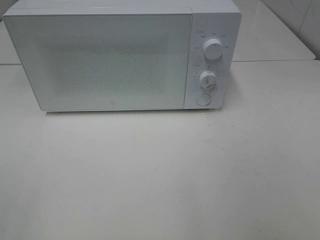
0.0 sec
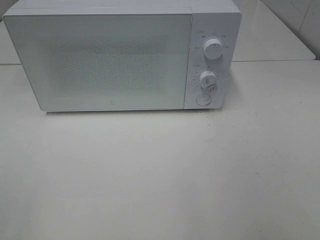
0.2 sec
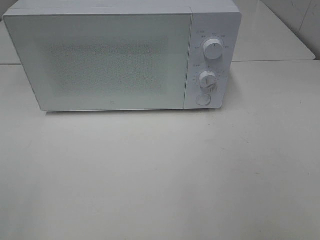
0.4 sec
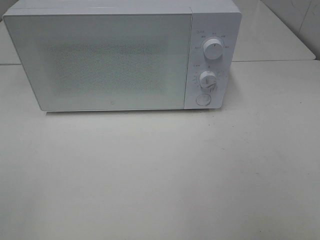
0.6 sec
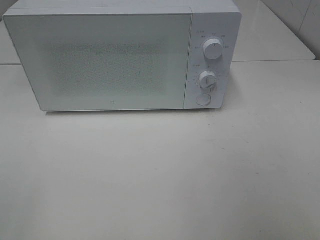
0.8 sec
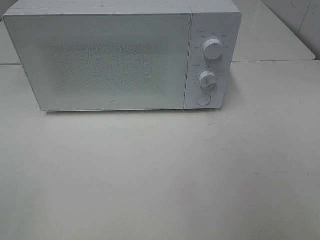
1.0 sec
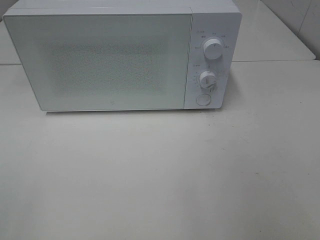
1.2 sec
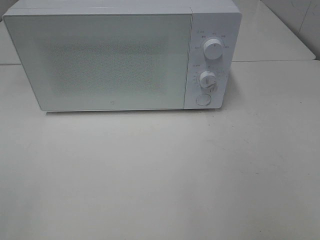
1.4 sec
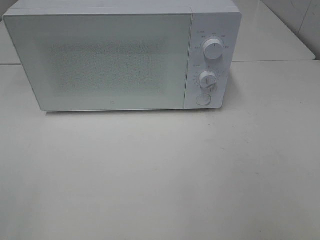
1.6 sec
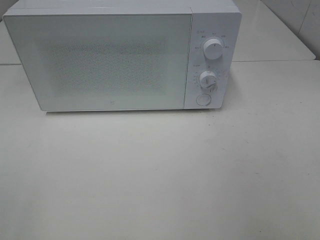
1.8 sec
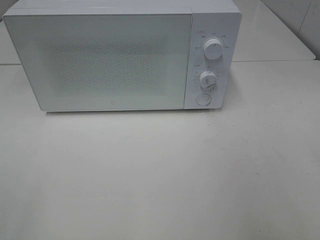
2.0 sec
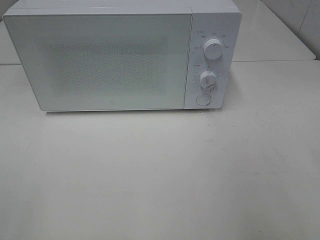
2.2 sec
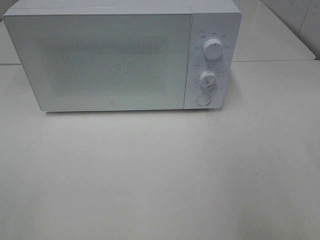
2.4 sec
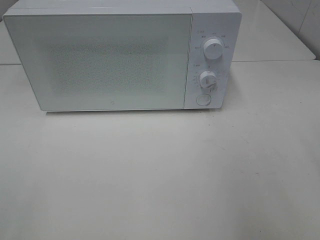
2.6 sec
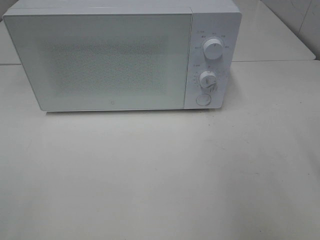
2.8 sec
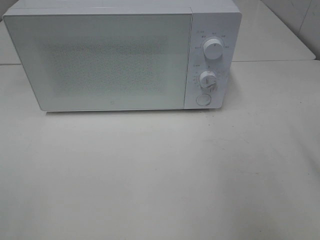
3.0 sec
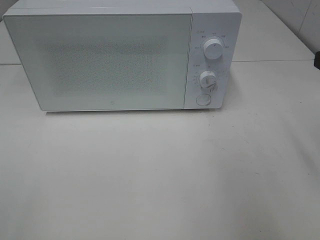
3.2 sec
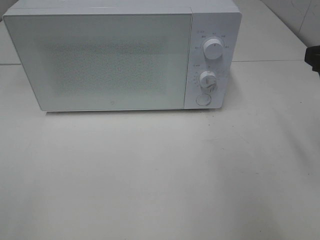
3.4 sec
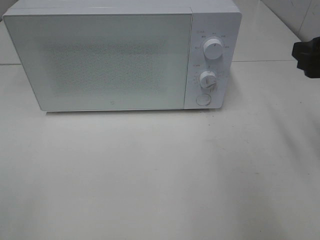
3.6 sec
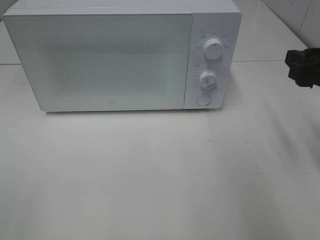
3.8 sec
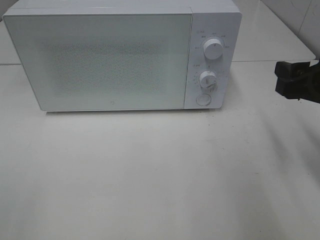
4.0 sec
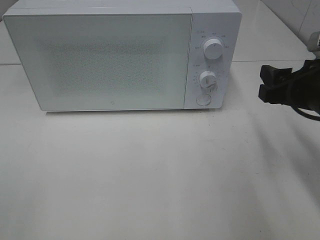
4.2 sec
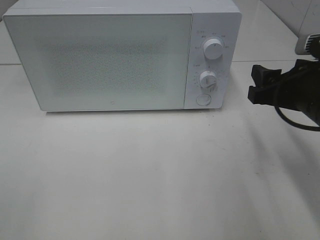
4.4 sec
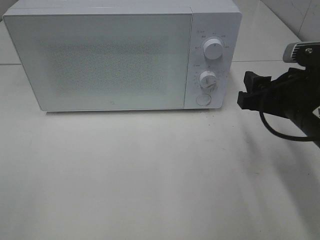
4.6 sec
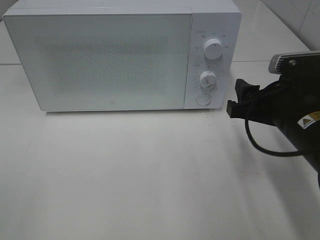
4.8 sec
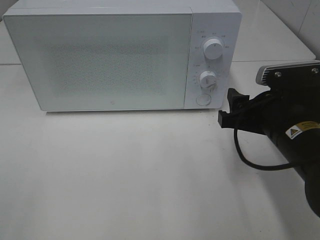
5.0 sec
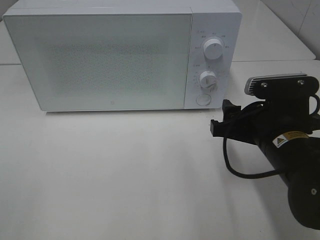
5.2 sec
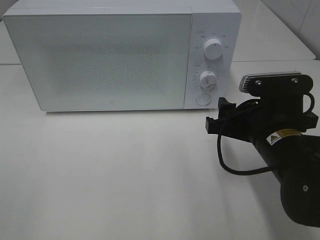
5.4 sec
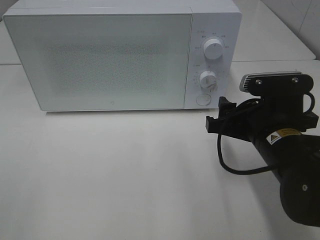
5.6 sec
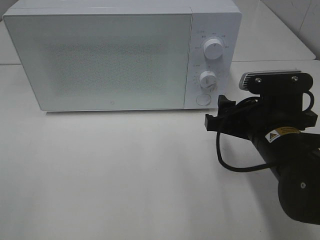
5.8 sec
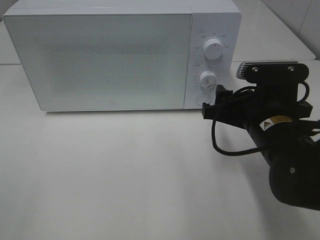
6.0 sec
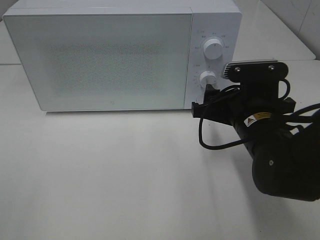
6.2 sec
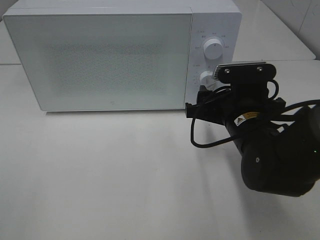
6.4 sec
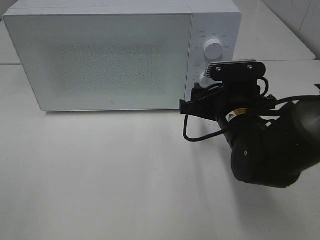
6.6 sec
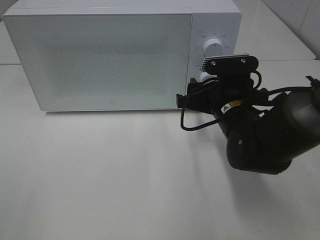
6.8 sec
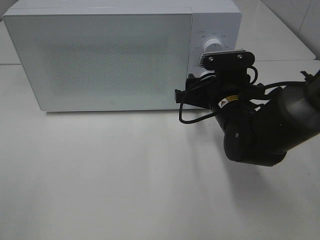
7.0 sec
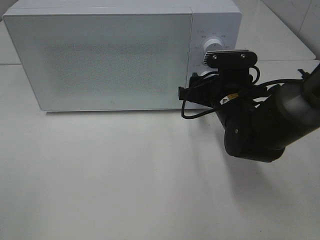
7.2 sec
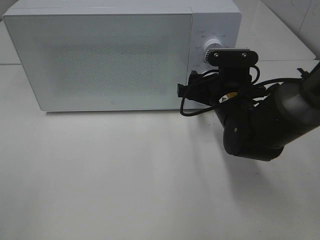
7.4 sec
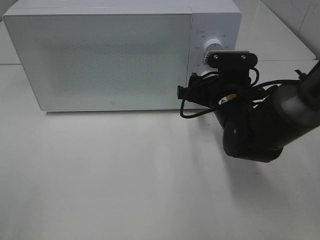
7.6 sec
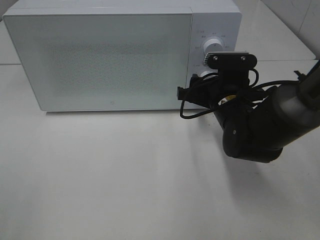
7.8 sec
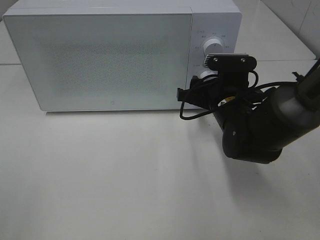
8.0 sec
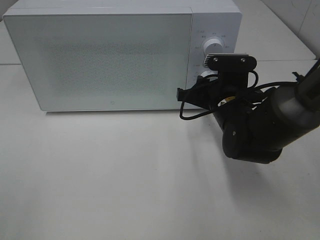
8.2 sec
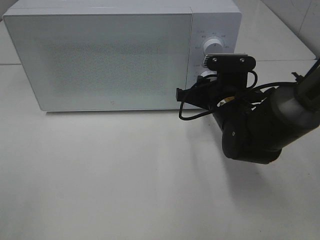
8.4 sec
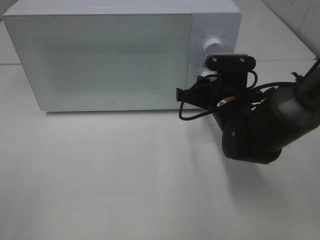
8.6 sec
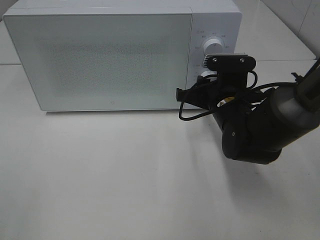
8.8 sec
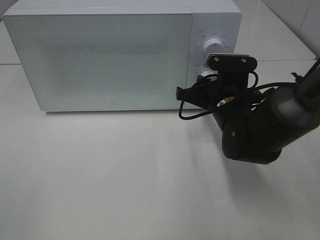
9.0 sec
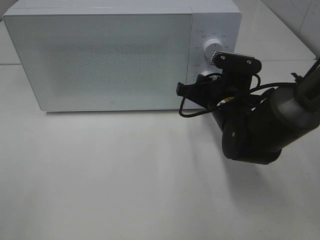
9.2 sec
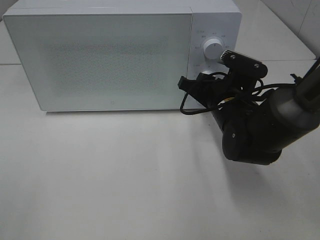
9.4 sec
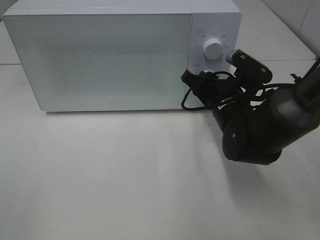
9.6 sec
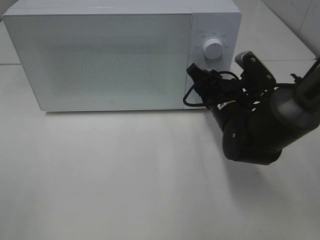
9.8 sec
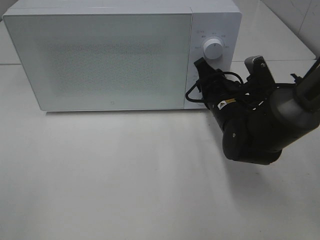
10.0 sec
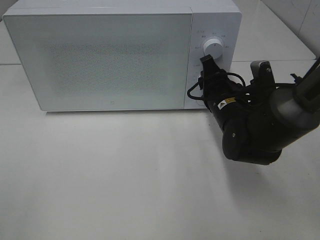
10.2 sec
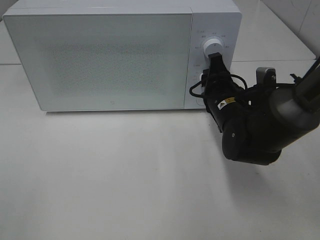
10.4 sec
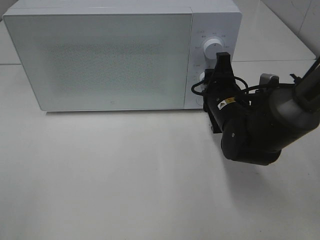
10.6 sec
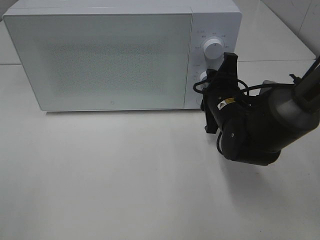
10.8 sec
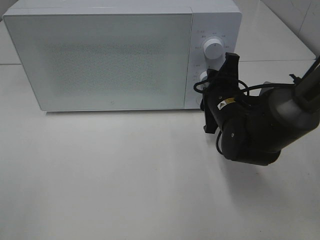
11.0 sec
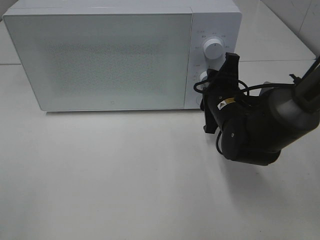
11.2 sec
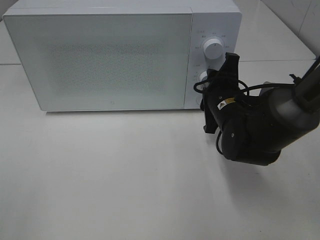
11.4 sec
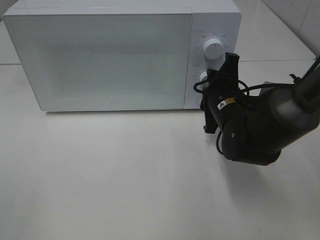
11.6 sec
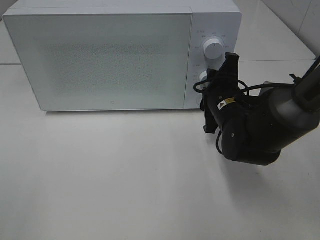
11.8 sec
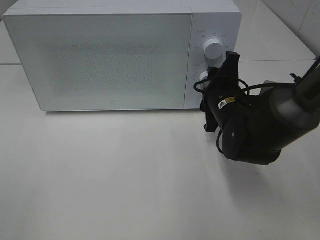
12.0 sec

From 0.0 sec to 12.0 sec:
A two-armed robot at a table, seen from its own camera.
Task of the whole recording: Heat Sandwich.
From 0.0 sec to 1.6 sec: Neither gripper changes place.
From 3.0 sec to 4.4 sec: The right gripper goes some 10 cm downward, to the left and forward.
From 4.4 sec to 6.0 sec: The right gripper heads to the left, covering some 5 cm.
From 6.0 sec to 7.6 sec: The right gripper travels forward by about 10 cm.
From 7.6 sec to 9.0 sec: The right gripper closes up.

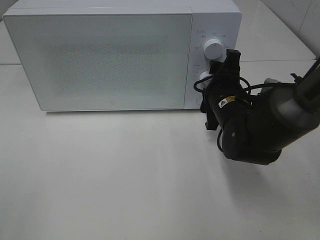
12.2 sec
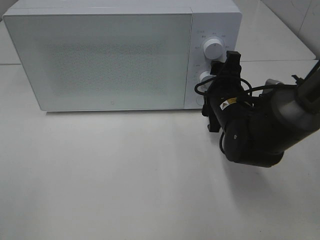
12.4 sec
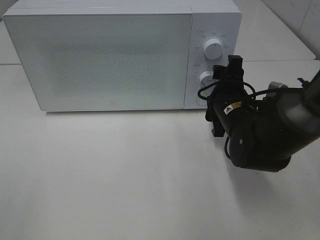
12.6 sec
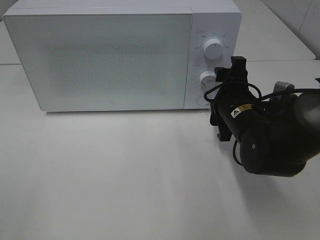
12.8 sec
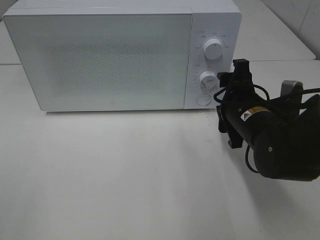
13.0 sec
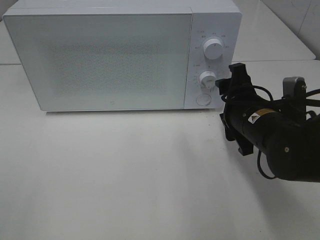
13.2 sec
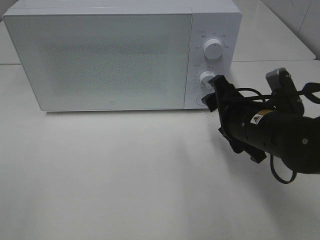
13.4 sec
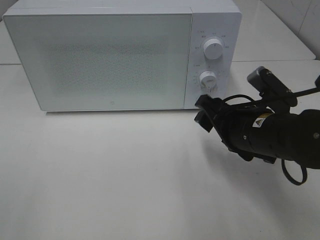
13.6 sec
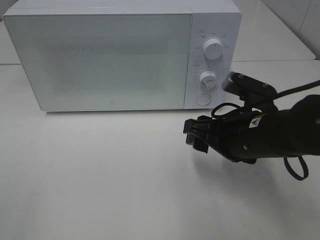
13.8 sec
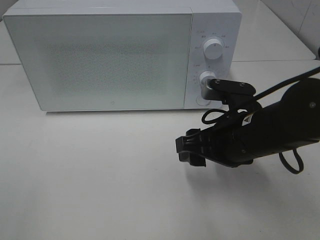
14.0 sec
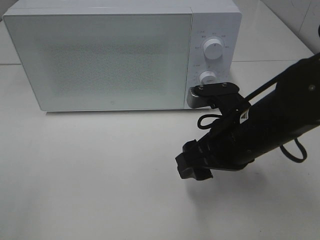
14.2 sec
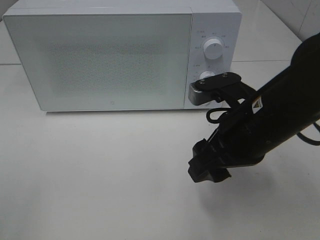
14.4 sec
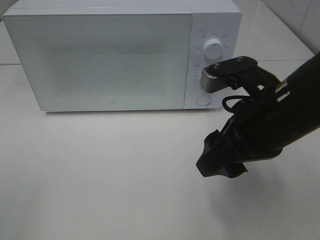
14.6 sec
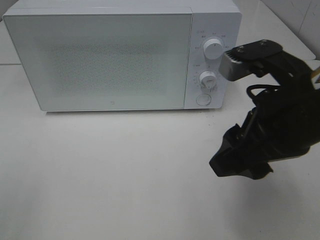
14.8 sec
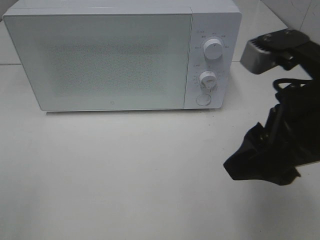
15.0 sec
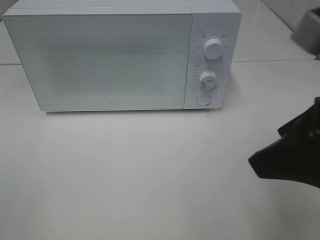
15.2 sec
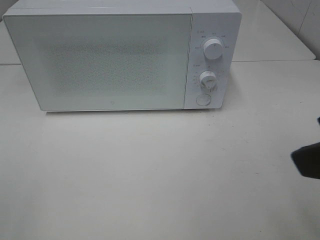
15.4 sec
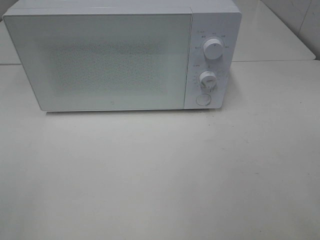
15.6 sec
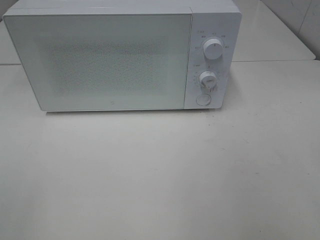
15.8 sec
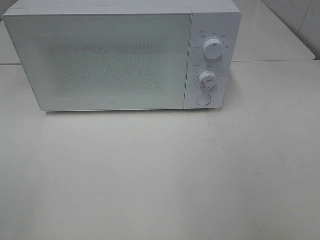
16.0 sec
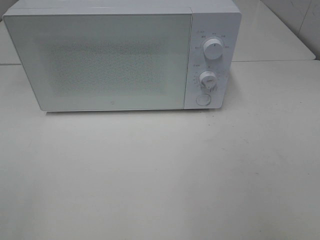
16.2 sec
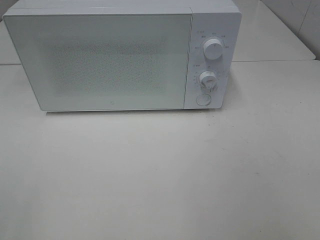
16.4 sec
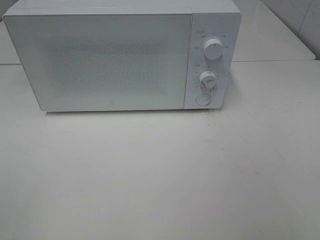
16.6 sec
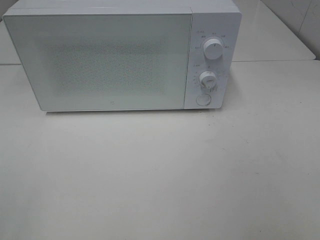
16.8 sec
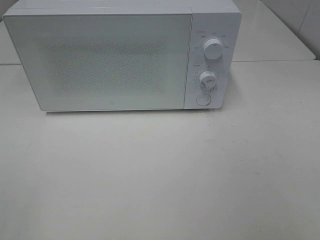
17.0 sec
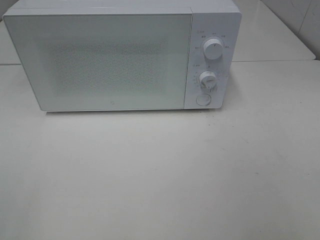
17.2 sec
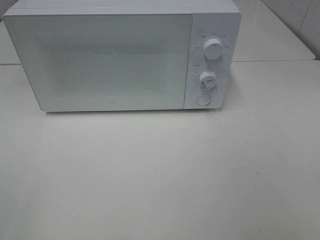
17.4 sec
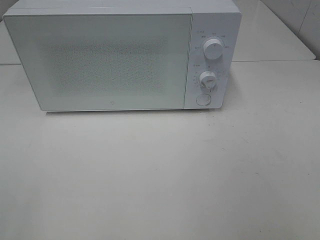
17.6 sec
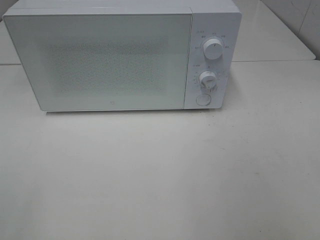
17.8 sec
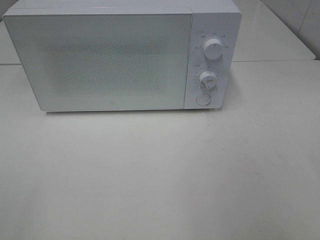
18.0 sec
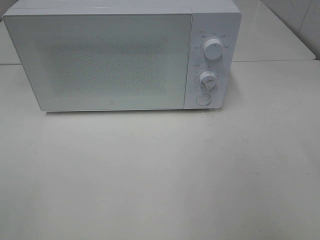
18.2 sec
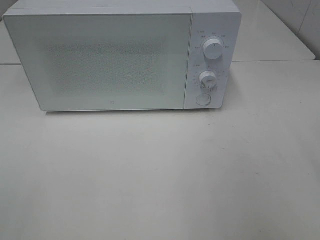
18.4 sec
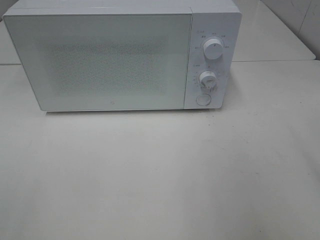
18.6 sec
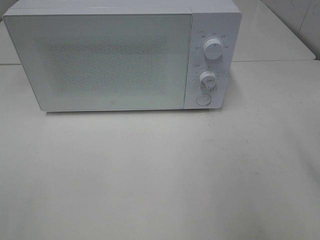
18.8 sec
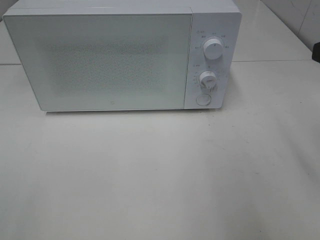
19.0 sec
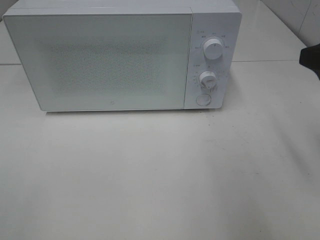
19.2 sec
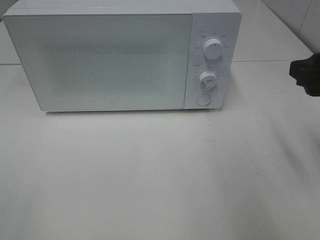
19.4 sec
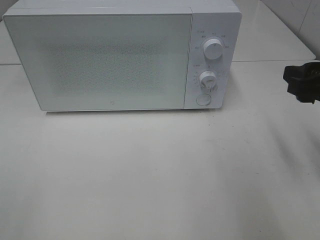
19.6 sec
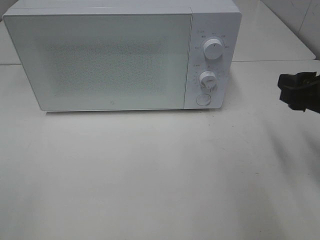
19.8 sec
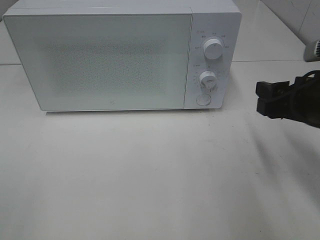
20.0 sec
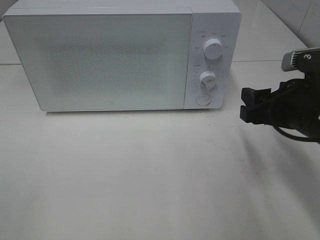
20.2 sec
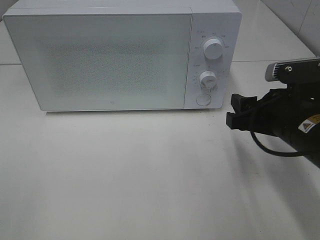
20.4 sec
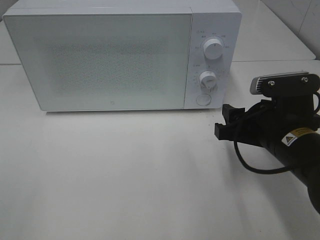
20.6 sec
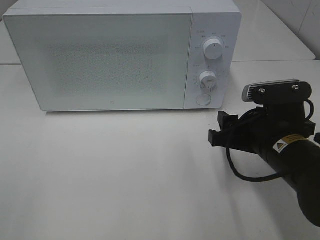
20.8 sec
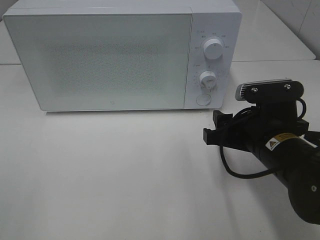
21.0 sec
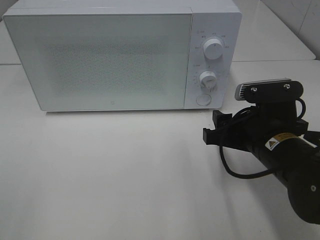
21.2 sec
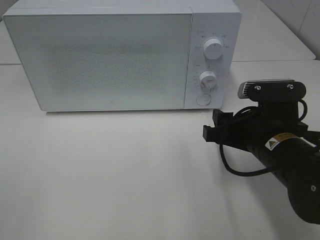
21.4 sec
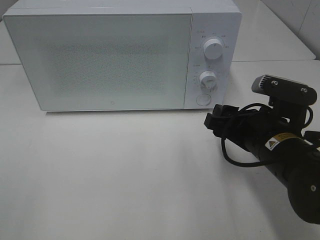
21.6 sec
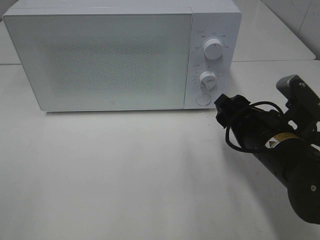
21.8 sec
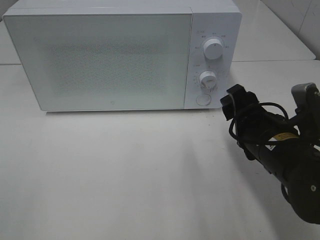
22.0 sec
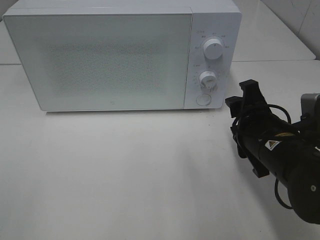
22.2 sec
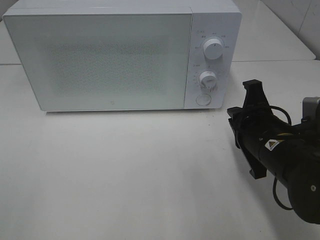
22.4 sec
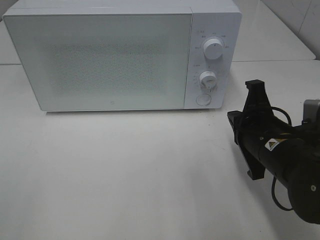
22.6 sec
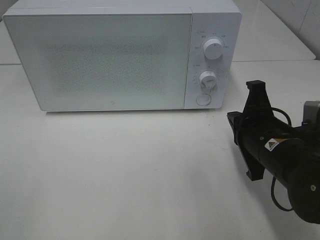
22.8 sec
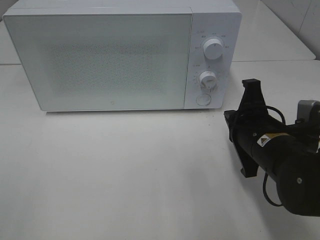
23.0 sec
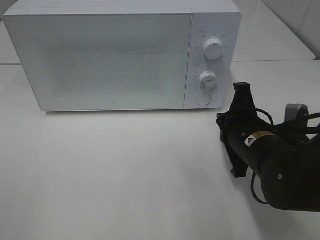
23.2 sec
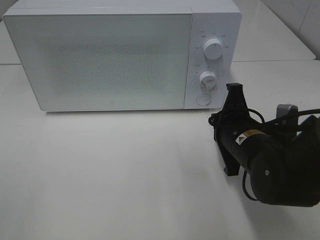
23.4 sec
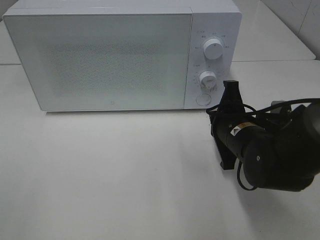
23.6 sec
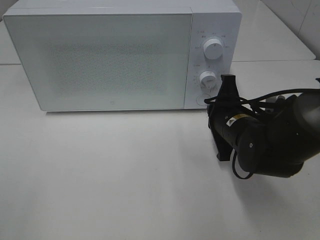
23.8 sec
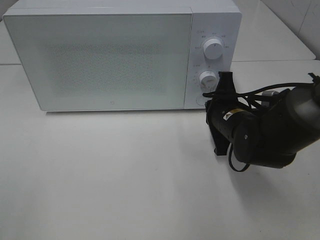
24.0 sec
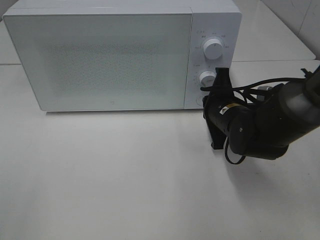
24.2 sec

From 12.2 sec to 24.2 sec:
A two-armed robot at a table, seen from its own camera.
Task of the whole recording: Heat Sandwich.
From 12.2 sec to 13.8 sec: The right gripper moves backward, roughly 10 cm.
From 13.8 sec to 15.2 sec: The right gripper travels upward and backward by some 20 cm.
From 15.2 sec to 16.6 sec: The right gripper travels backward and to the right by approximately 15 cm.
From 18.2 sec to 19.8 sec: The right gripper goes some 15 cm forward and downward.
From 19.8 sec to 21.2 sec: The right gripper goes about 10 cm to the left and downward.
From 21.2 sec to 22.6 sec: The right gripper closes its fingers.
From 22.6 sec to 24.2 sec: The right gripper is displaced forward by some 10 cm.
